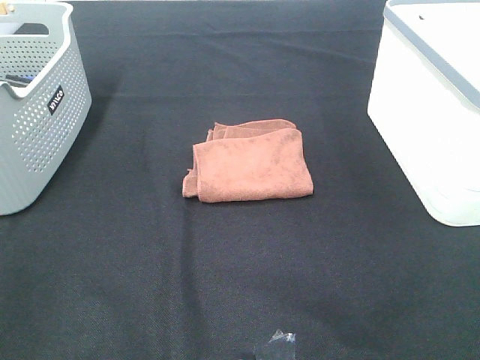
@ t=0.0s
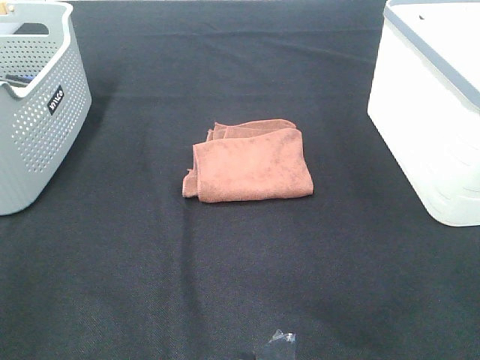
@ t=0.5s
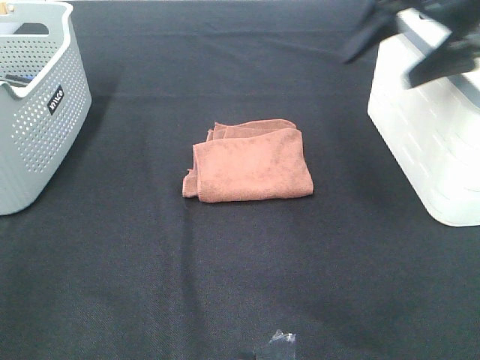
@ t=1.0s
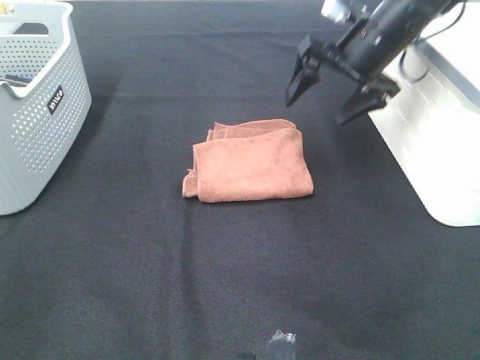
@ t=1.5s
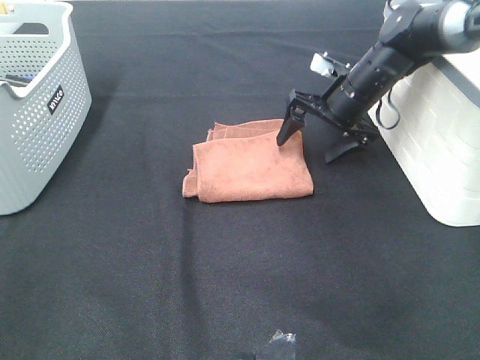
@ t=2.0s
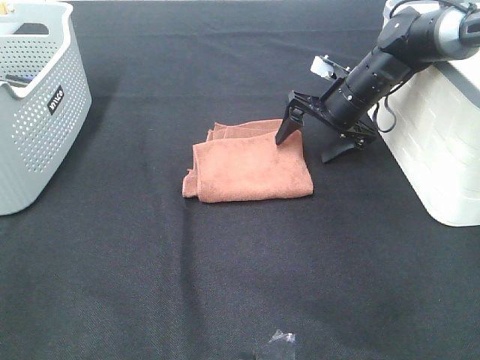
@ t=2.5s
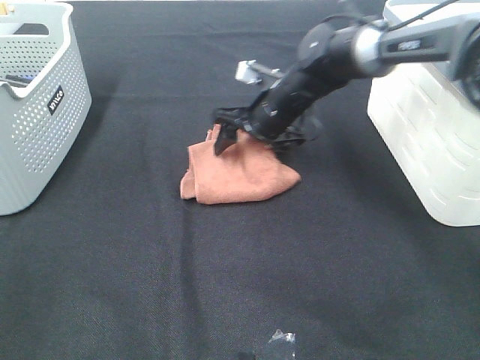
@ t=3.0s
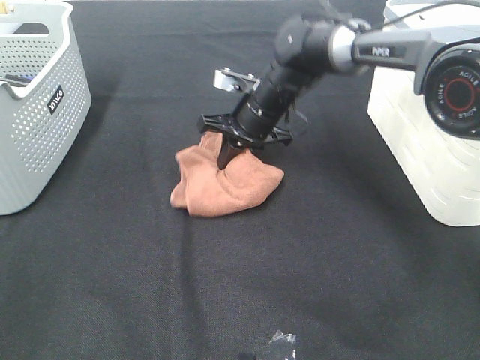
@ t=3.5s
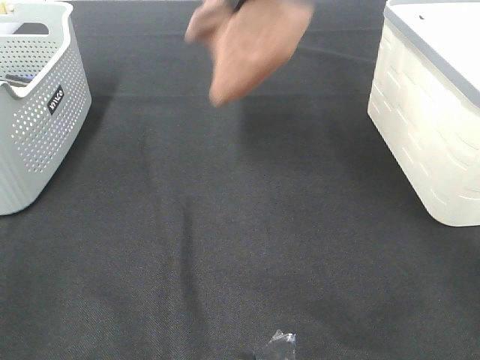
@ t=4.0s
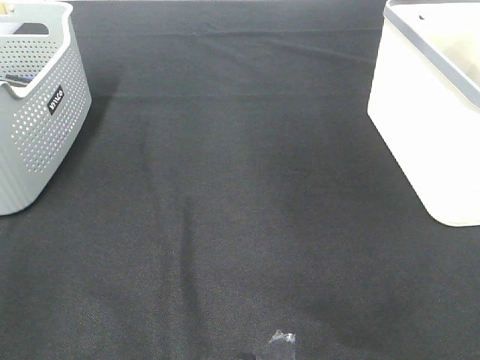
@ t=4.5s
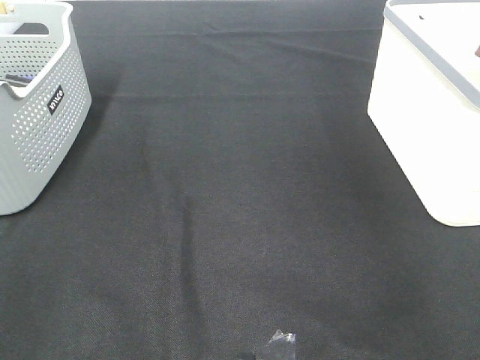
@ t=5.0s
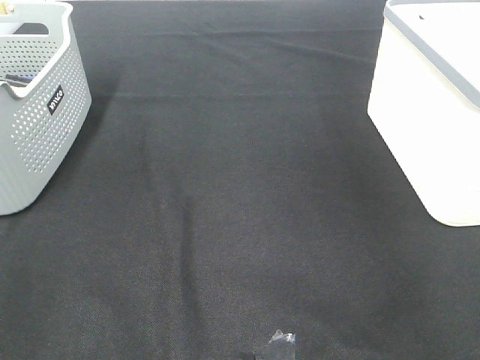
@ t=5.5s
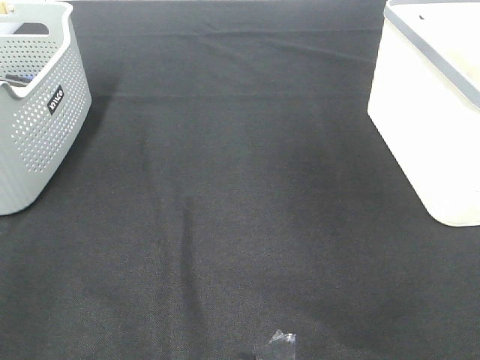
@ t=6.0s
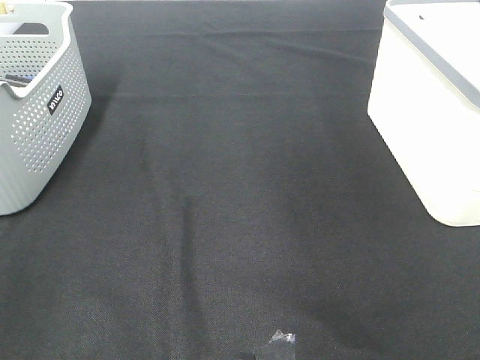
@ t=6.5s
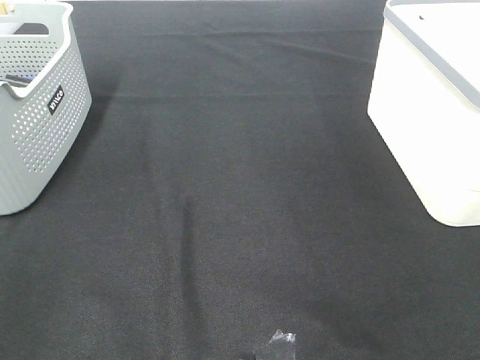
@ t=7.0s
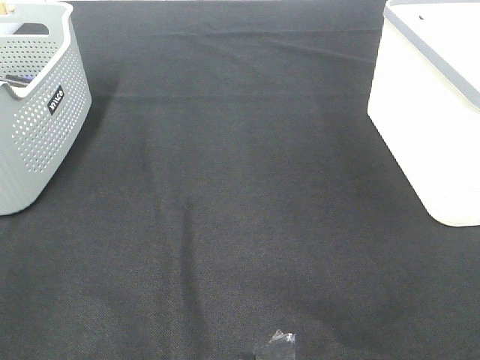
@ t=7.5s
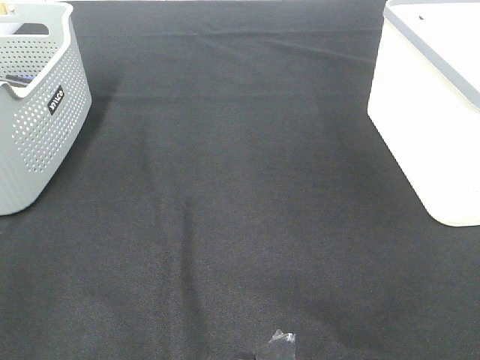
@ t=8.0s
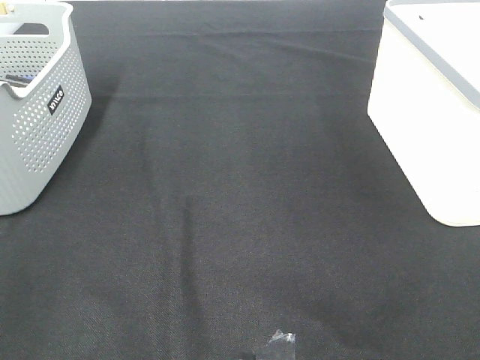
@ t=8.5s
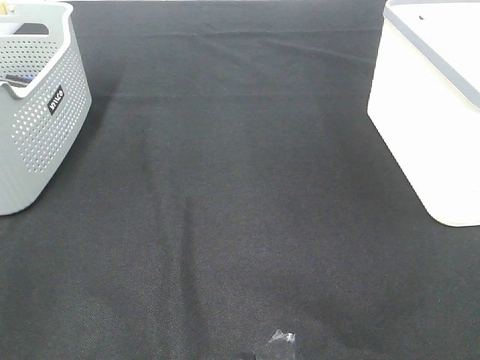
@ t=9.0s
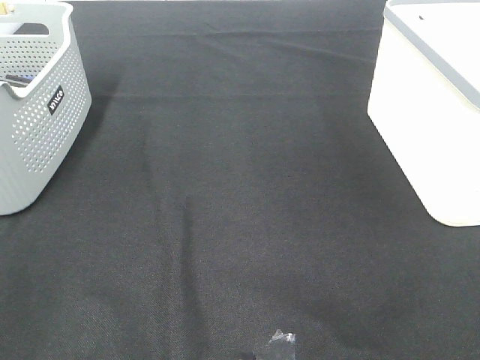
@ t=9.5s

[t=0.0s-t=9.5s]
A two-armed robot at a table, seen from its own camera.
Step, t=0.0s to t=3.0s: Right hand: grab the folded brown towel.
Step, t=3.5s to t=5.5s: Right hand: place the brown towel in right basket.
t=0.0s to t=2.0s: The right gripper travels forward by about 40 cm.
t=2.0s to t=4.0s: The right gripper moves upward and to the left, some 25 cm, and closes its fingers.
t=4.0s to t=5.5s: The right gripper goes some 35 cm to the right, and opens.

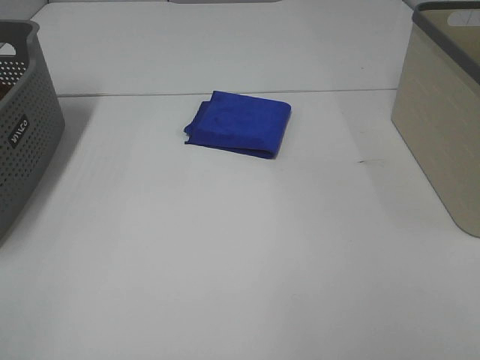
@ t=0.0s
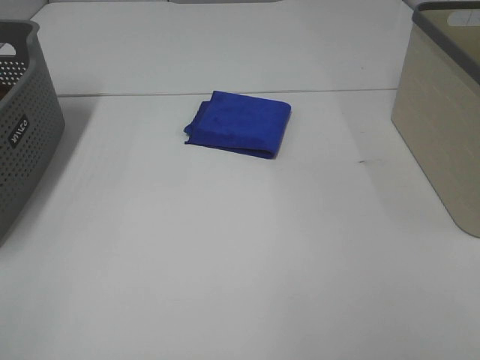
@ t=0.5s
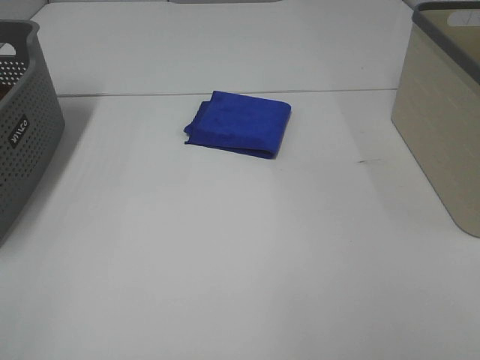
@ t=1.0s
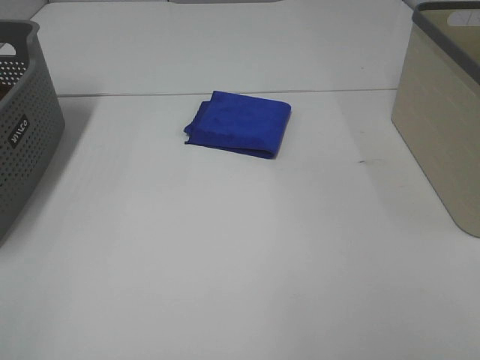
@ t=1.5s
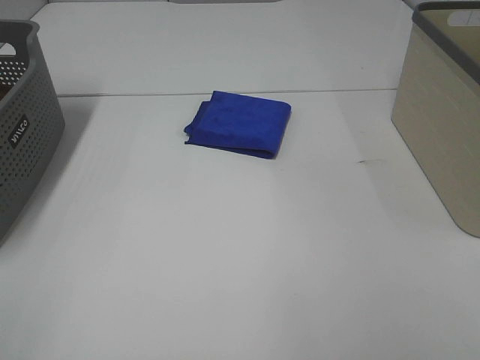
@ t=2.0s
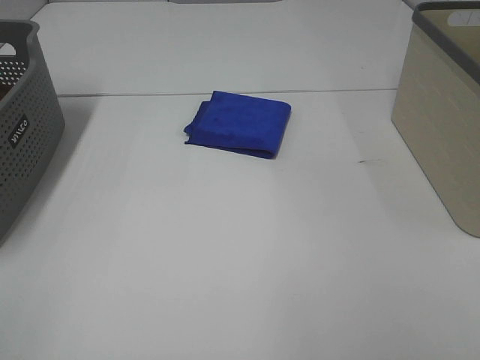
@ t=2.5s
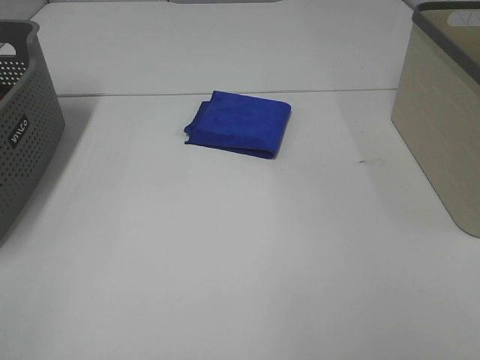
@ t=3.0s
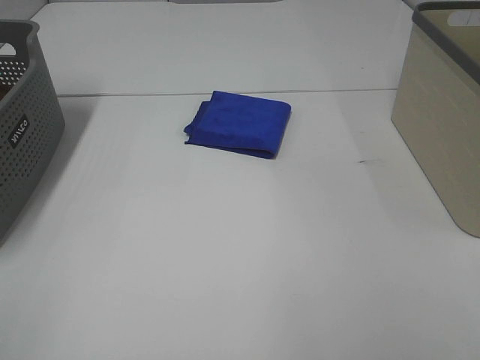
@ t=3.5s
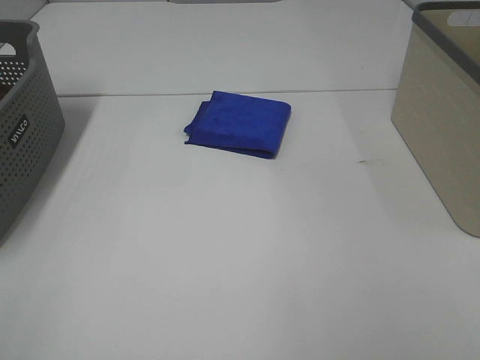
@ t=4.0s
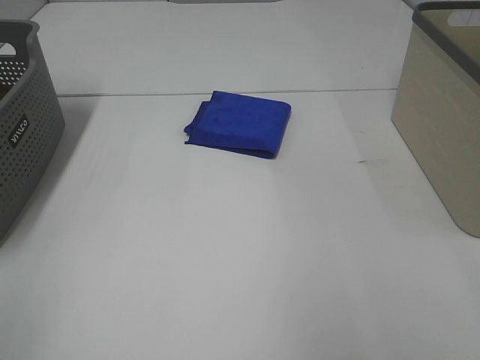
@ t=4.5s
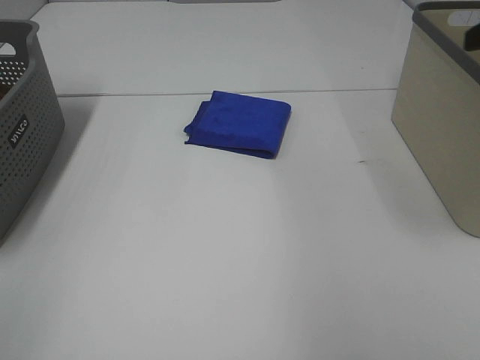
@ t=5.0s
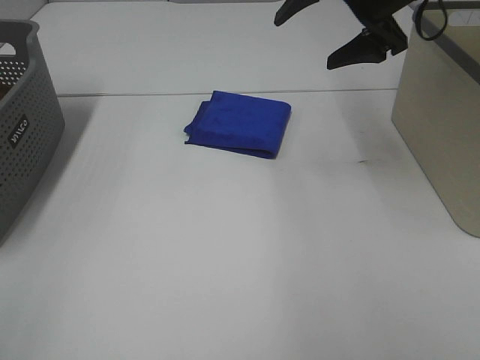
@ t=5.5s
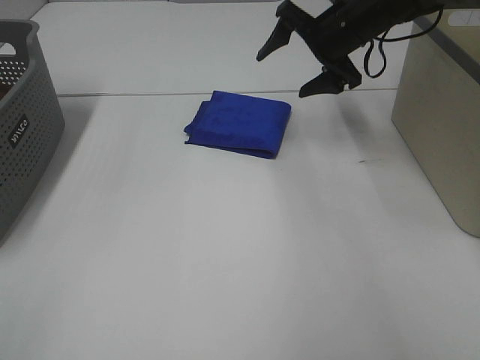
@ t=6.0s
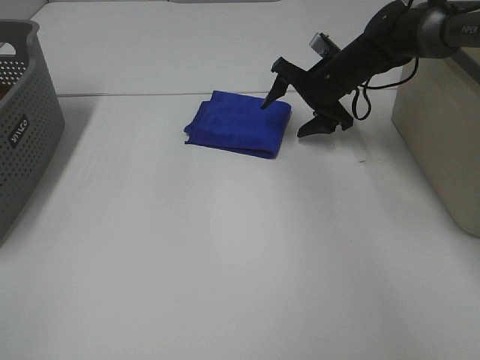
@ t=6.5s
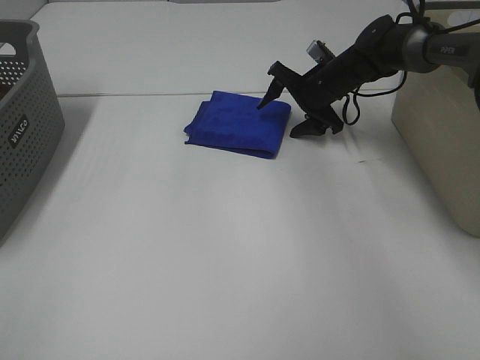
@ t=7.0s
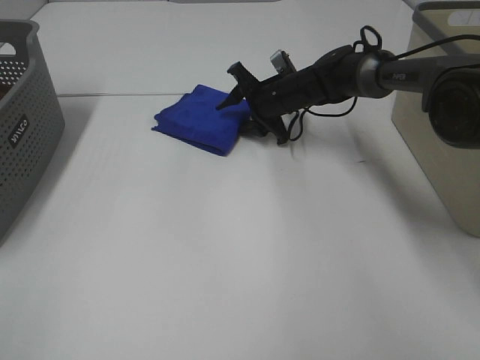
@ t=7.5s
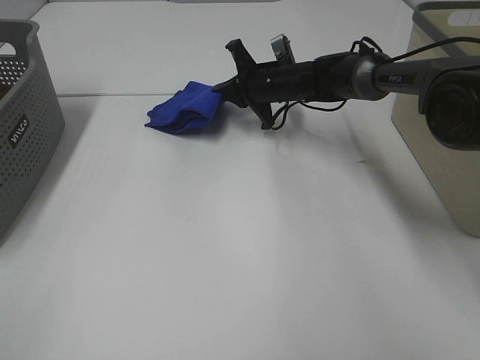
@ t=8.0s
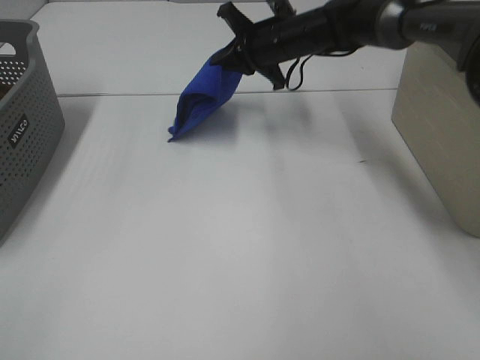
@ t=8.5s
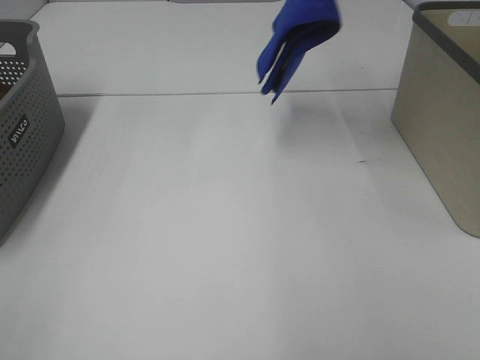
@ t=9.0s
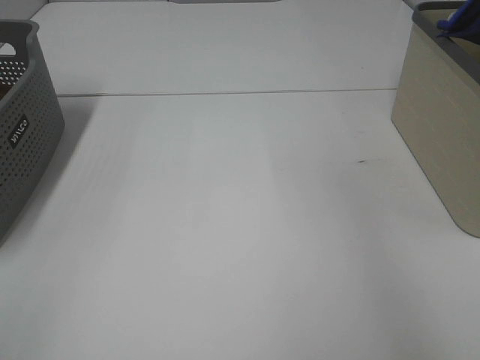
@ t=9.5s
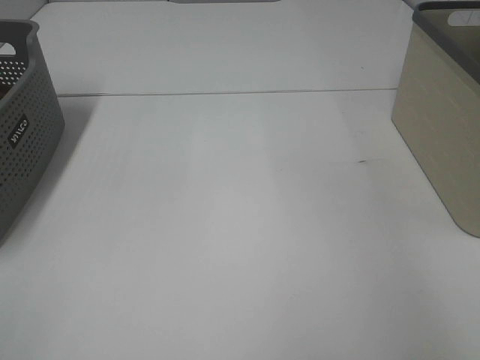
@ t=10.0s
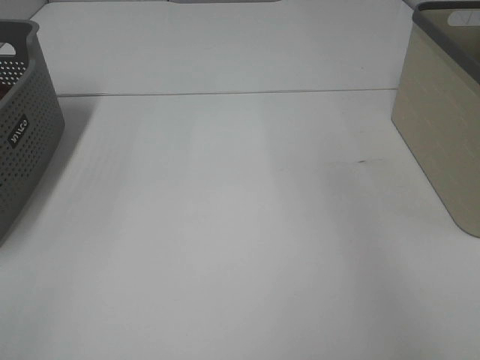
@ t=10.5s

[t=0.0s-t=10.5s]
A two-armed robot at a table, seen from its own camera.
Step, t=0.0s to t=7.5s: Right hand: grab the folded blue towel.
Step, t=8.0s to t=10.0s: Right hand: place the blue towel in right basket.
t=0.0s to t=2.0s: Neither gripper changes place.
t=4.0s to t=6.5s: The right gripper is displaced forward by approximately 50 cm.
t=6.5s to t=8.5s: The right gripper goes some 10 cm to the left and upward, and closes its fingers.
t=8.5s to t=10.5s: The right gripper is displaced to the right and upward by roughly 35 cm, and opens.
